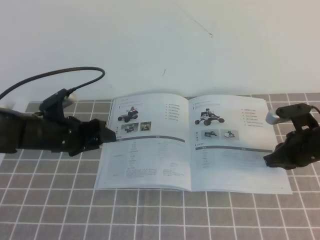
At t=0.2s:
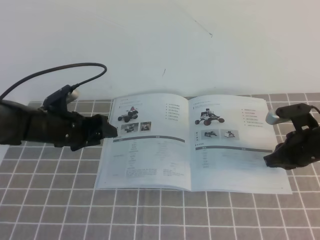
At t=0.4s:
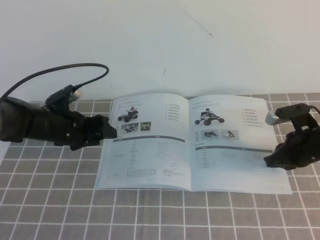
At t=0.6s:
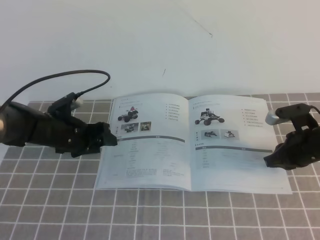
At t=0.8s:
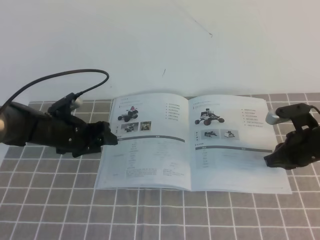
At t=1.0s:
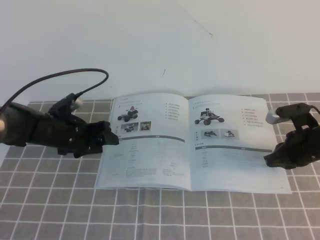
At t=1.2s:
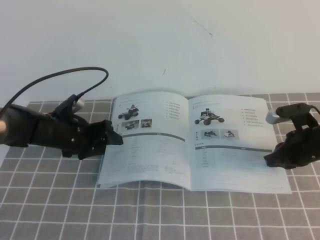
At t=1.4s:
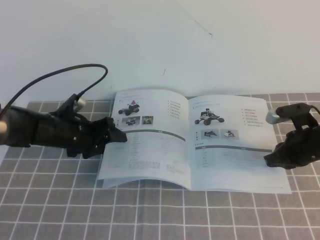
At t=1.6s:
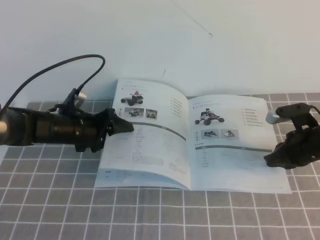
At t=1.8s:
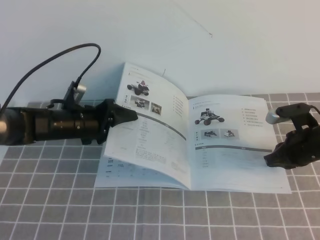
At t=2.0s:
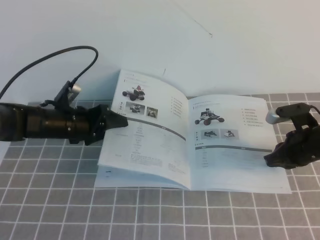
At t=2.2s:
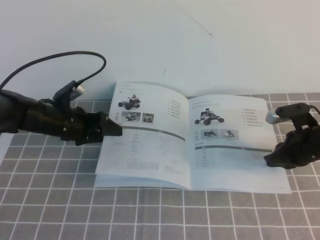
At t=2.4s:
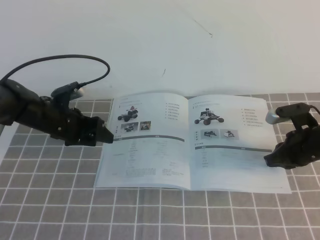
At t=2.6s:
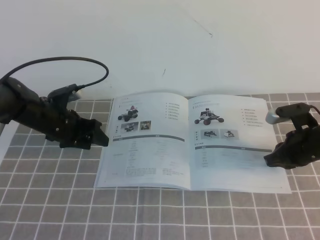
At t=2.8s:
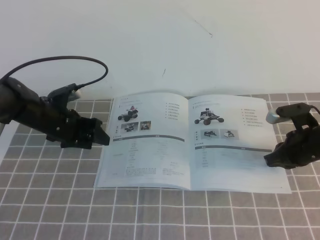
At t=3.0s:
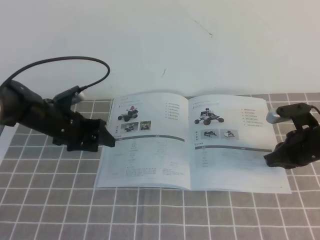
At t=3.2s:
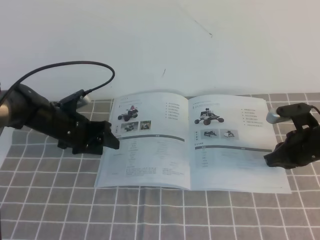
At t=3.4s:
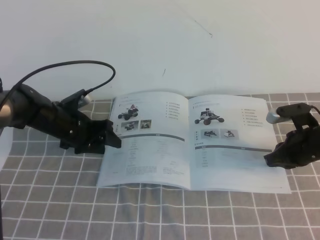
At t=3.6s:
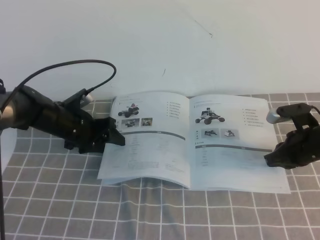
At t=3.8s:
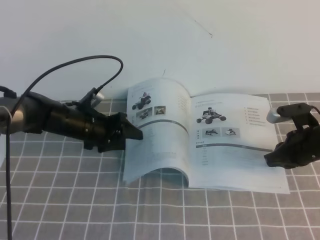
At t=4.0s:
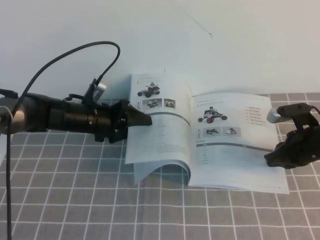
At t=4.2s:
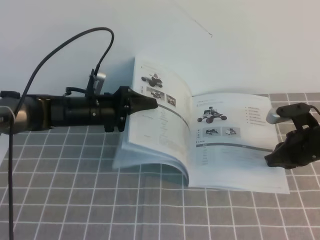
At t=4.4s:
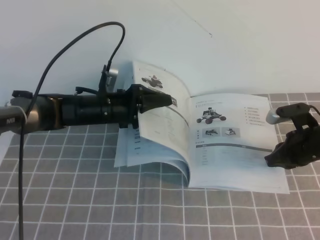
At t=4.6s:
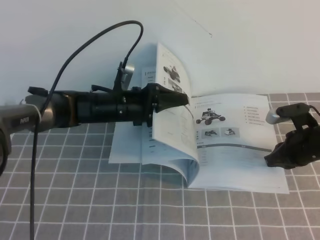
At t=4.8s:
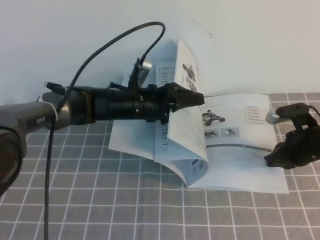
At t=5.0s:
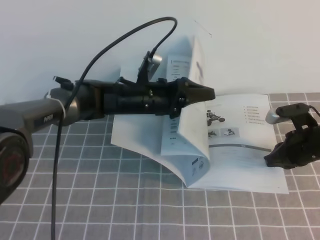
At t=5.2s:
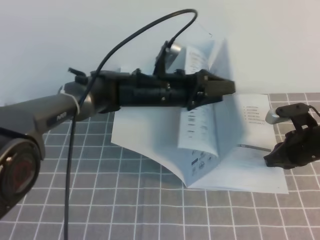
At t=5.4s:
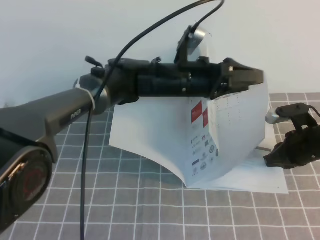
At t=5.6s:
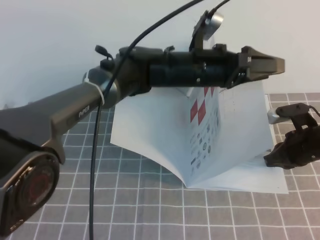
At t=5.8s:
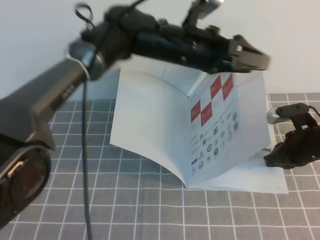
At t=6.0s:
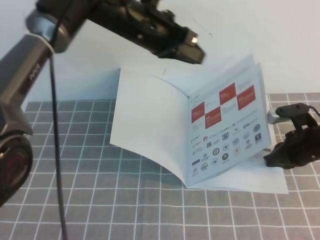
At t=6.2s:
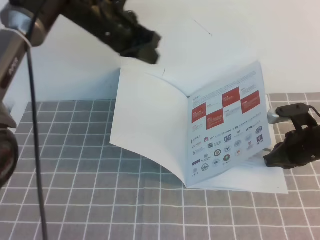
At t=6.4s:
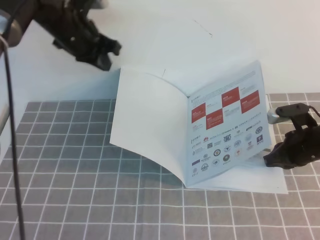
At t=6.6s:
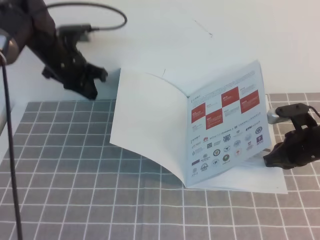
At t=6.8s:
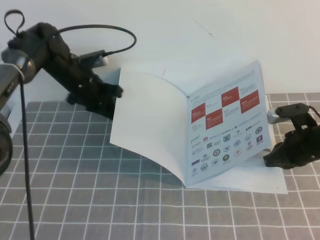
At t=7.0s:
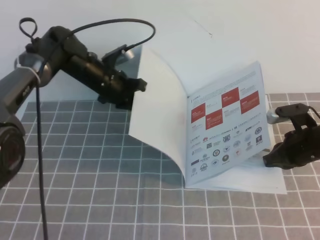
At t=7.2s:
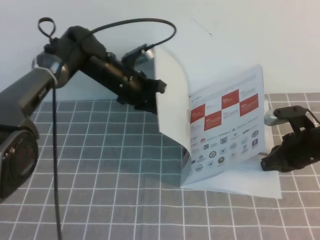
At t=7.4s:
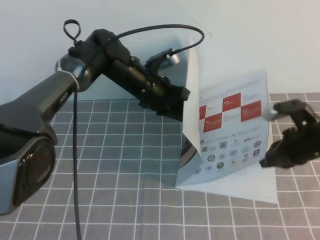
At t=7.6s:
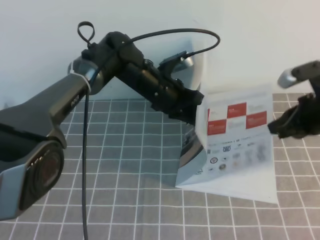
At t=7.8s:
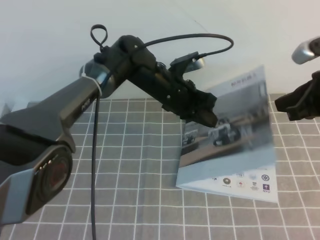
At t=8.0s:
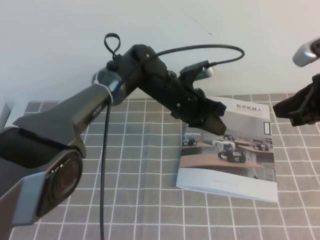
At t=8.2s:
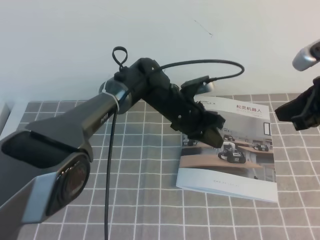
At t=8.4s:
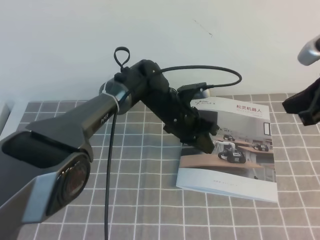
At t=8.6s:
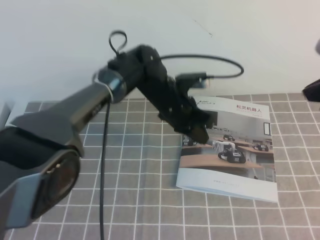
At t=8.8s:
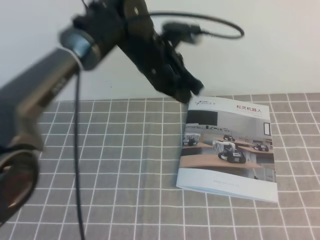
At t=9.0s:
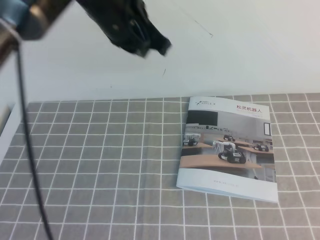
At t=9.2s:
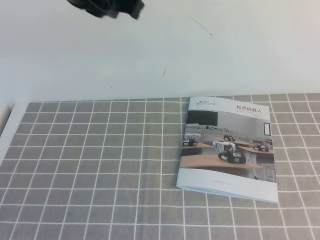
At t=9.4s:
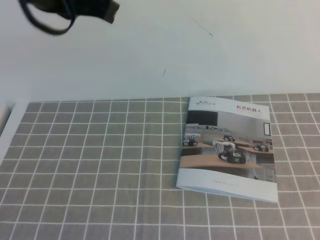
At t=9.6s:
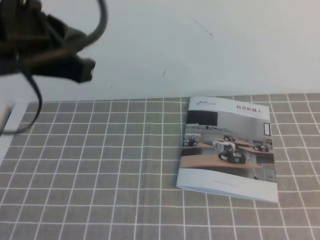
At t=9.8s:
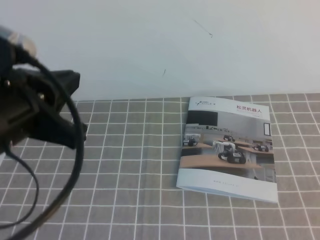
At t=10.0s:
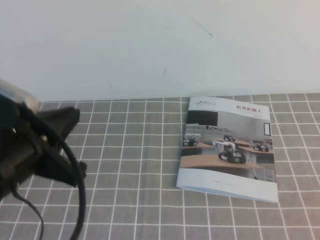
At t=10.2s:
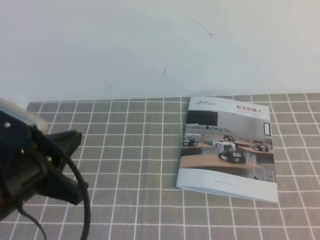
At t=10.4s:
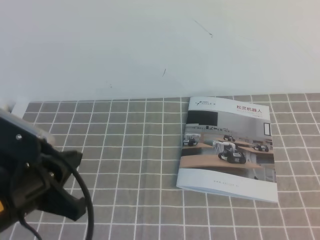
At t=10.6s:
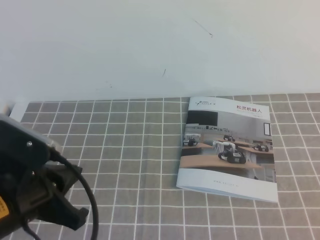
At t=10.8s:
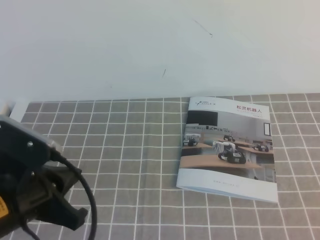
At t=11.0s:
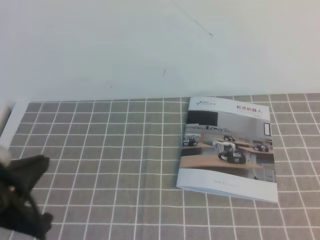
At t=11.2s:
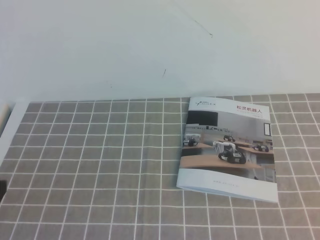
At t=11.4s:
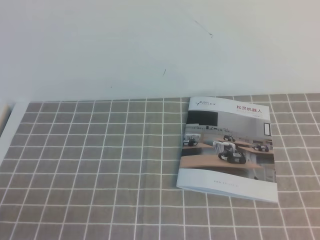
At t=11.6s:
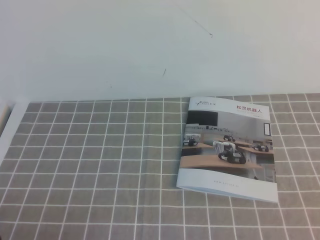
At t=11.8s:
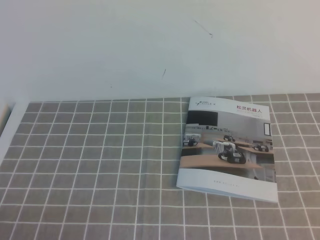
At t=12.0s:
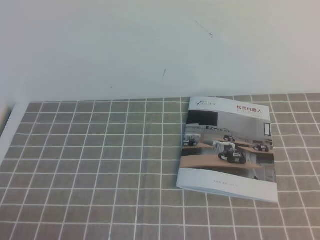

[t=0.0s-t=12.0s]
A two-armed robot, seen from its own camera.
Task of the whole recording: on the grey tablecloth, hold the book with one hand and close it with the other.
t=0.0s to t=1.6s: There are only small adjustments of the grippers.
t=3.0s to t=4.4s: The left gripper is displaced to the right by about 10 cm.
t=4.4s to t=6.0s: The left gripper shifts roughly 20 cm upward and to the right, and closes.
t=6.0s to t=7.6s: The right gripper travels upward by some 10 cm. Meanwhile the left gripper moves downward, approximately 10 cm, moves about 15 cm to the left and comes back, and closes.
t=7.6s to t=9.0s: Both grippers move upward and backward, approximately 20 cm.
t=9.0s to t=10.4s: The left gripper is displaced backward, to the left and downward by about 25 cm. Meanwhile the right gripper travels backward and downward by roughly 20 cm.
t=10.4s to t=12.0s: The left gripper heads downward, backward and to the left, covering roughly 20 cm.
